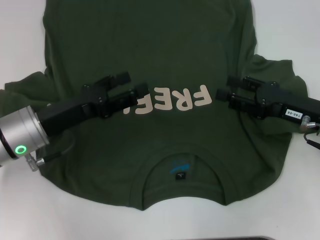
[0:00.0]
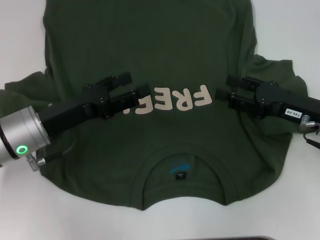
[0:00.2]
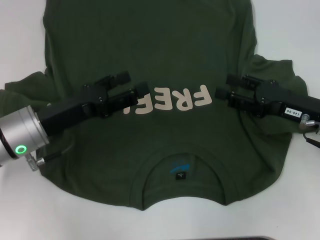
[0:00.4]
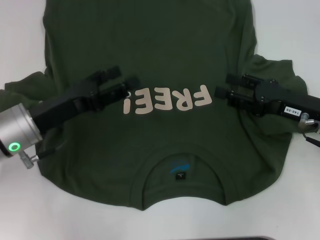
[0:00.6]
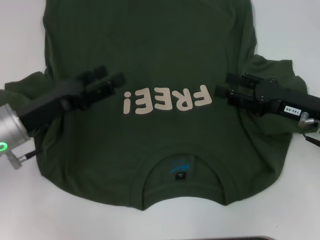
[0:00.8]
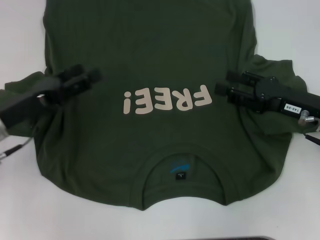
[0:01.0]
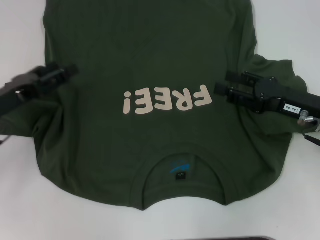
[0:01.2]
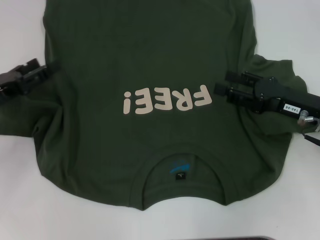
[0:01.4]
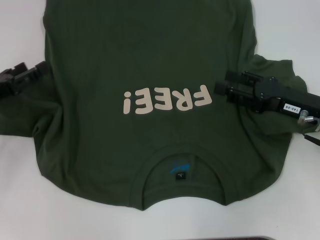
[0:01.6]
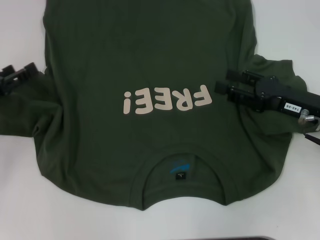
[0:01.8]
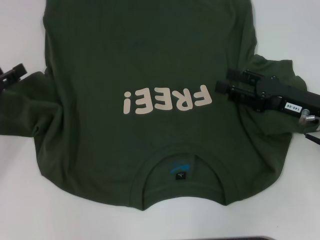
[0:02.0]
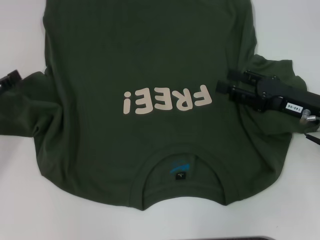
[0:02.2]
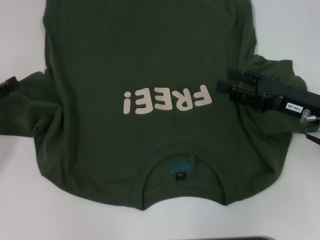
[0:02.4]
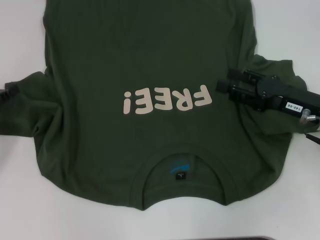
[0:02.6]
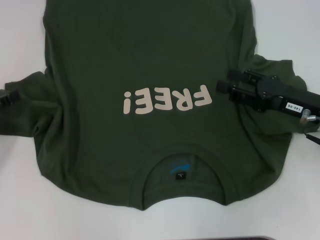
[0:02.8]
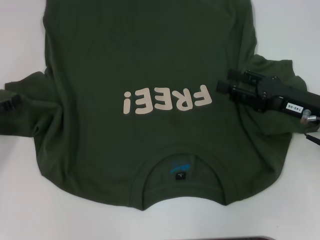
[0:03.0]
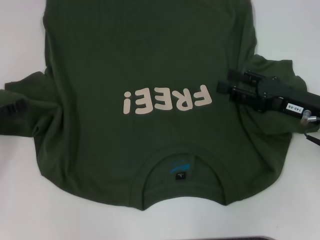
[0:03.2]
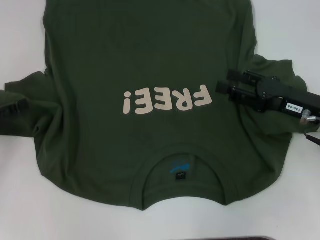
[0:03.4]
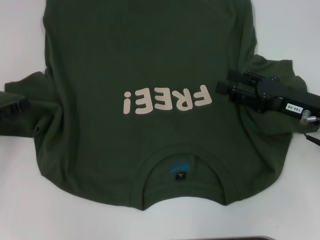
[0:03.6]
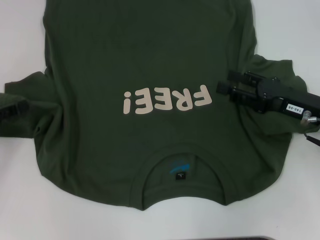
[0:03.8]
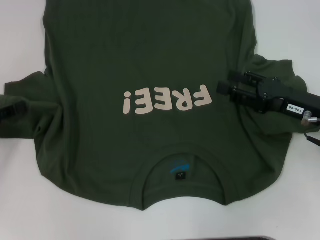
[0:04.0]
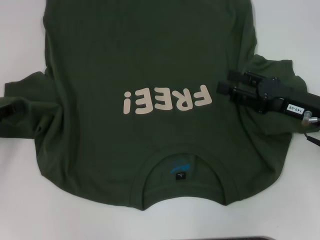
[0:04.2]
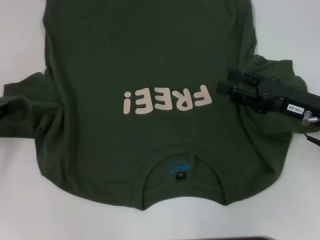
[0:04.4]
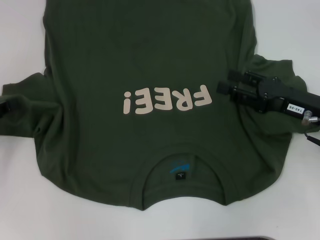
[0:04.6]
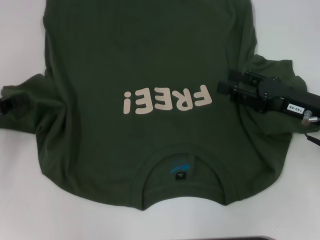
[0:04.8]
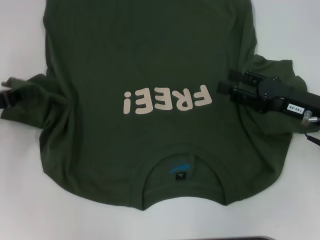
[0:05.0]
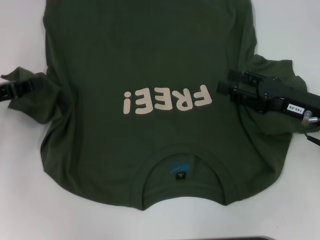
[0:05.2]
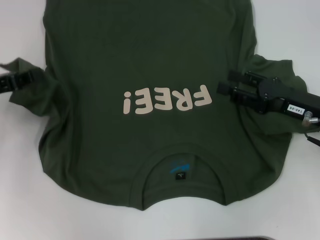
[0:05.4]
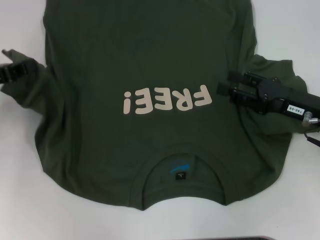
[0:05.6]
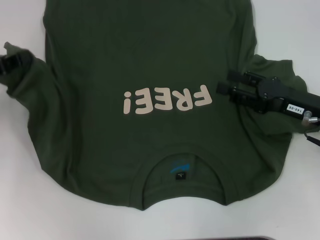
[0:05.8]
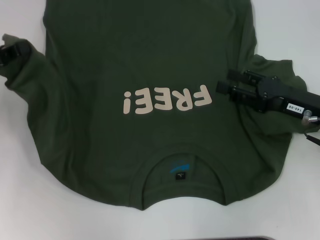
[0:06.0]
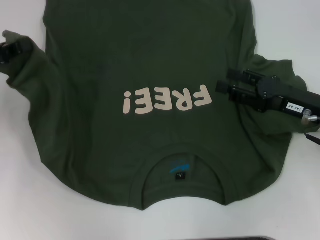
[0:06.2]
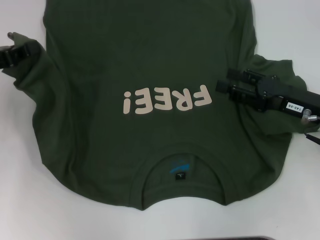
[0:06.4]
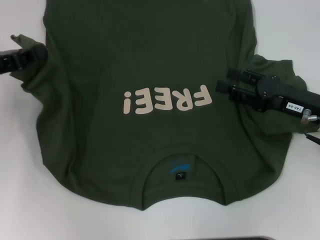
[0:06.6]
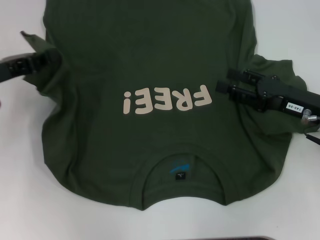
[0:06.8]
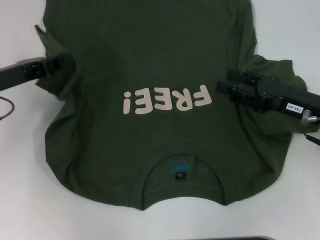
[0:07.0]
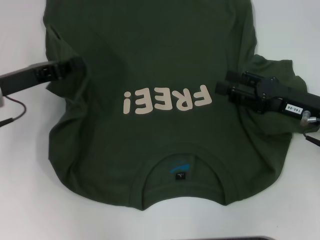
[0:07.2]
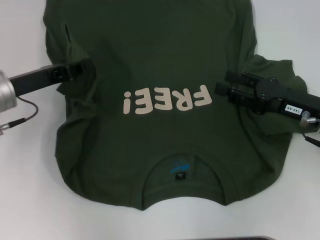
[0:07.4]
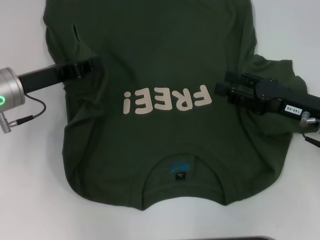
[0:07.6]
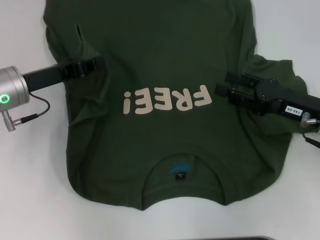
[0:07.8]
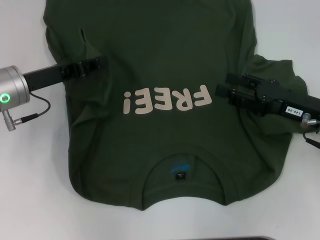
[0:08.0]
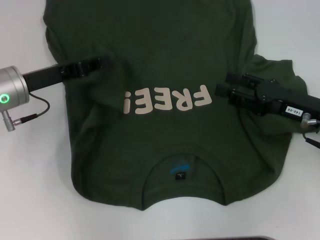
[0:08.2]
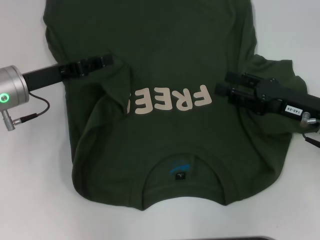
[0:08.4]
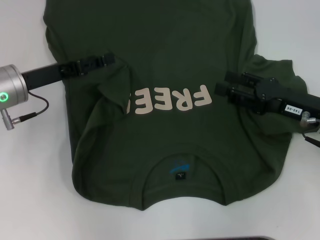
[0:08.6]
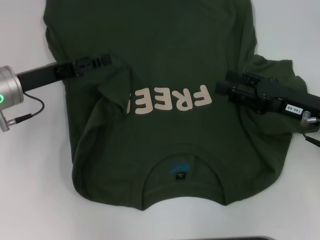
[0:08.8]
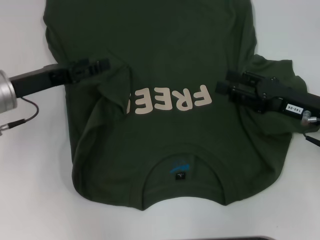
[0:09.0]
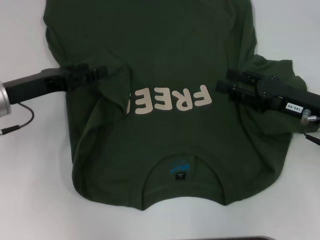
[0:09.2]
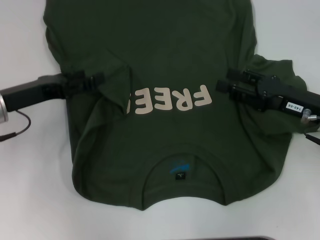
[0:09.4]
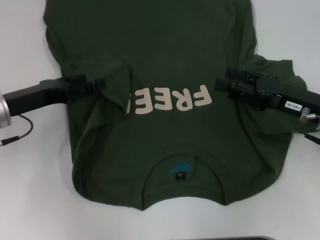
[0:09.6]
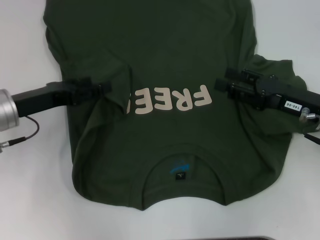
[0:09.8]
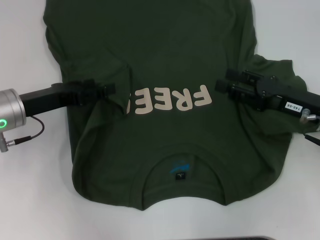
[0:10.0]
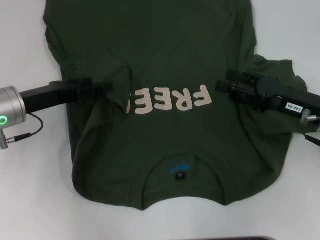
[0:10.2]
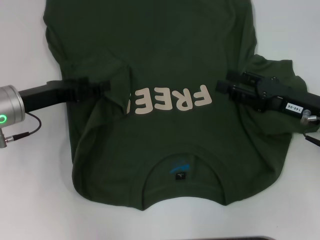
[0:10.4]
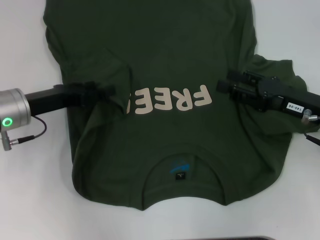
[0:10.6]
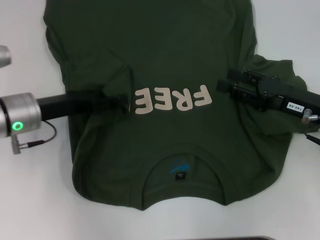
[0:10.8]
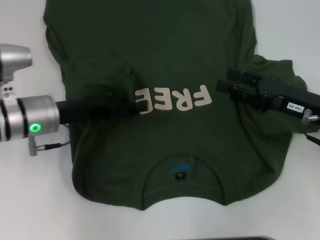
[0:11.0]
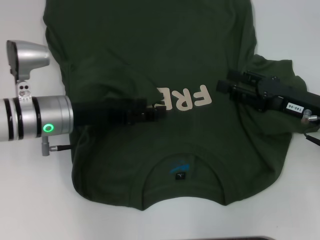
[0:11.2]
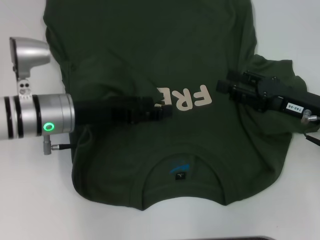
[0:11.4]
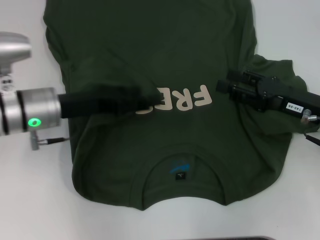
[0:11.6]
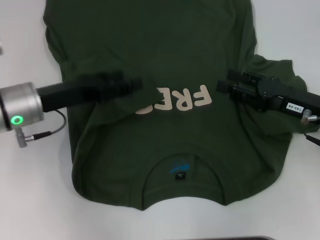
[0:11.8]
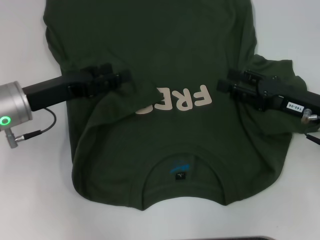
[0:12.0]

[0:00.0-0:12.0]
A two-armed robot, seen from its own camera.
0:00.0 to 0:01.6: The left gripper goes approximately 10 cm to the left.
0:01.6 to 0:03.0: The grippers stay close to where they were, moving slightly.
0:04.4 to 0:06.0: The left gripper is displaced upward by roughly 5 cm, and closes.
0:06.0 to 0:07.6: The left gripper moves to the right, about 10 cm.
0:07.6 to 0:09.0: The left gripper opens its fingers.
0:09.0 to 0:10.4: The grippers stay close to where they were, moving slightly.

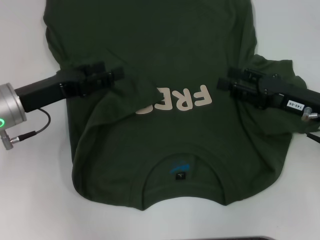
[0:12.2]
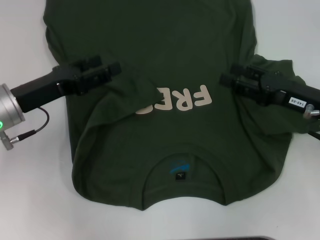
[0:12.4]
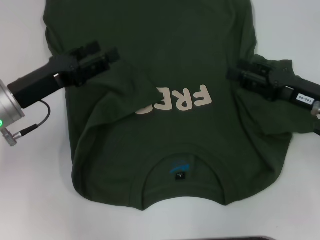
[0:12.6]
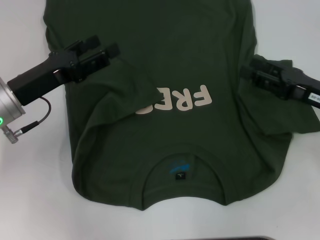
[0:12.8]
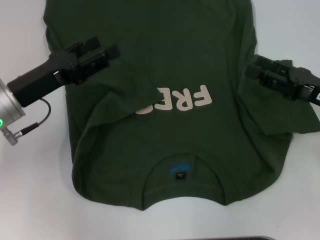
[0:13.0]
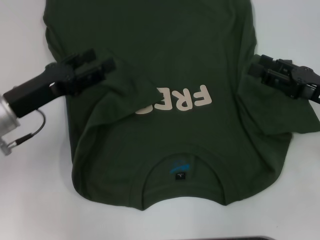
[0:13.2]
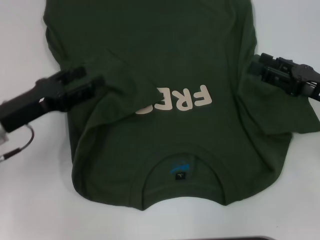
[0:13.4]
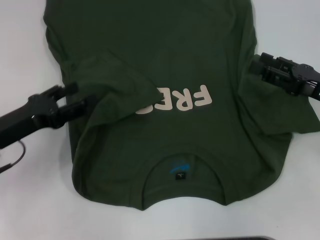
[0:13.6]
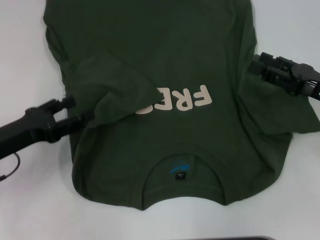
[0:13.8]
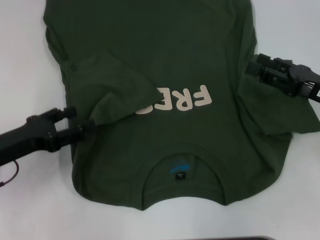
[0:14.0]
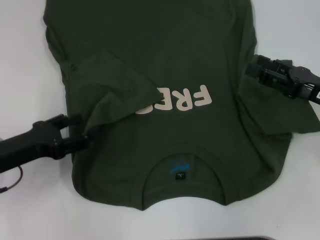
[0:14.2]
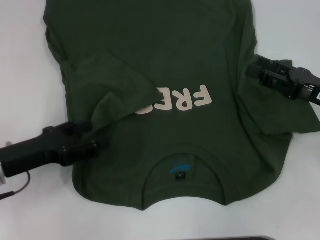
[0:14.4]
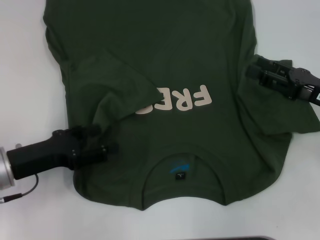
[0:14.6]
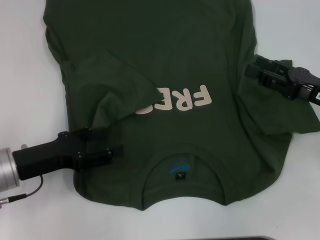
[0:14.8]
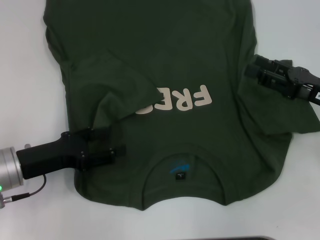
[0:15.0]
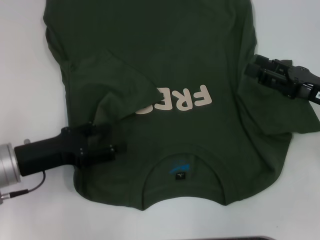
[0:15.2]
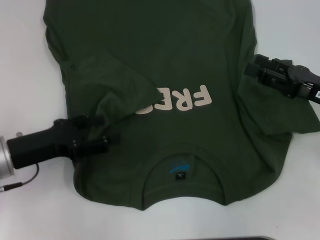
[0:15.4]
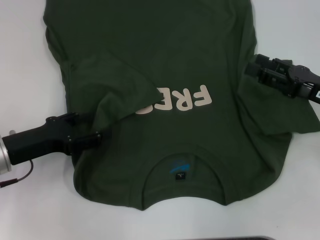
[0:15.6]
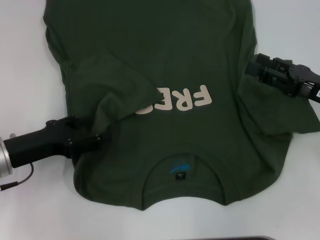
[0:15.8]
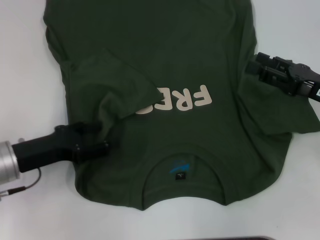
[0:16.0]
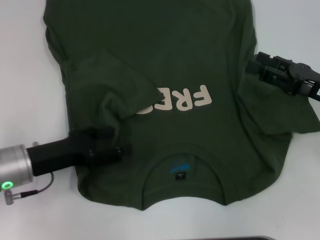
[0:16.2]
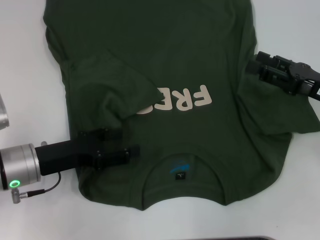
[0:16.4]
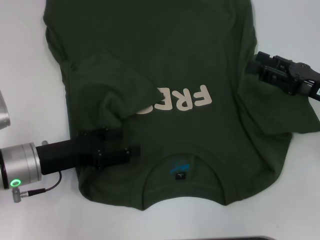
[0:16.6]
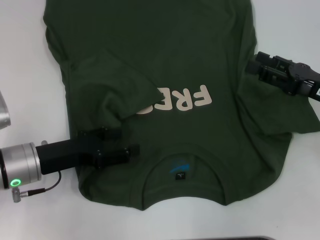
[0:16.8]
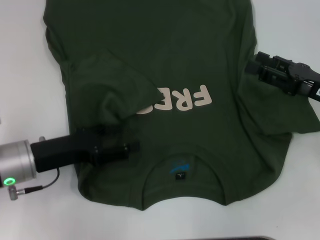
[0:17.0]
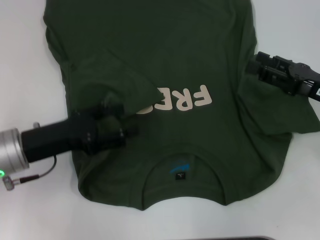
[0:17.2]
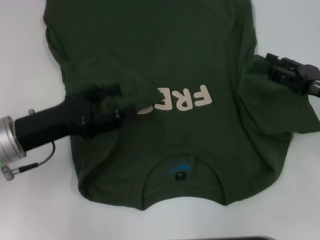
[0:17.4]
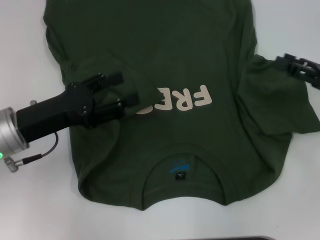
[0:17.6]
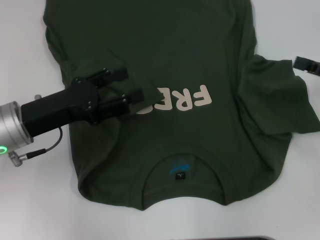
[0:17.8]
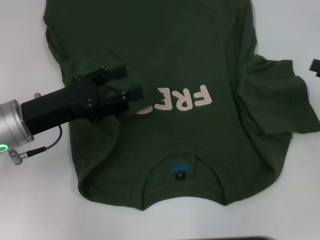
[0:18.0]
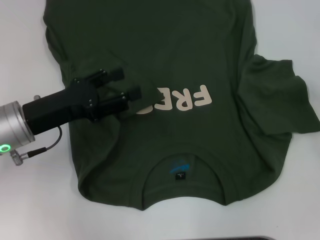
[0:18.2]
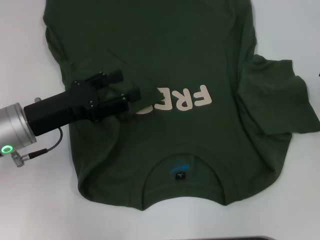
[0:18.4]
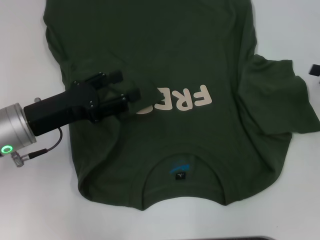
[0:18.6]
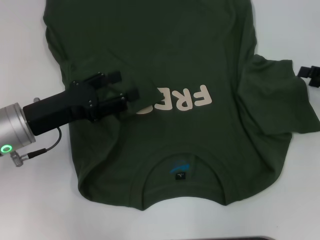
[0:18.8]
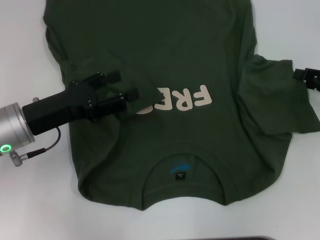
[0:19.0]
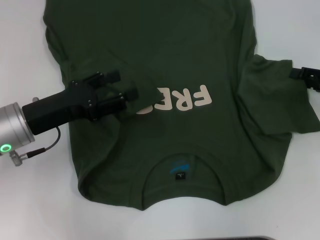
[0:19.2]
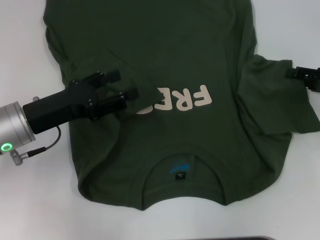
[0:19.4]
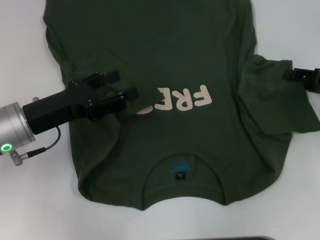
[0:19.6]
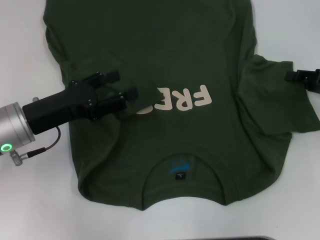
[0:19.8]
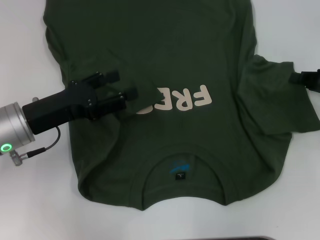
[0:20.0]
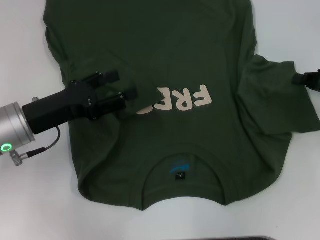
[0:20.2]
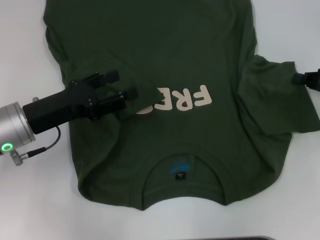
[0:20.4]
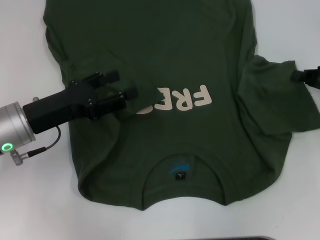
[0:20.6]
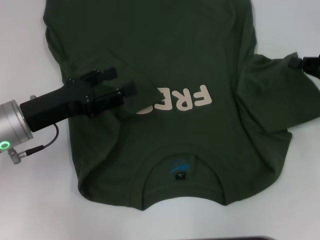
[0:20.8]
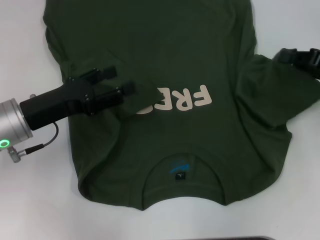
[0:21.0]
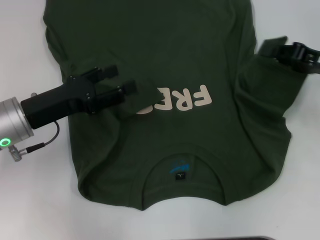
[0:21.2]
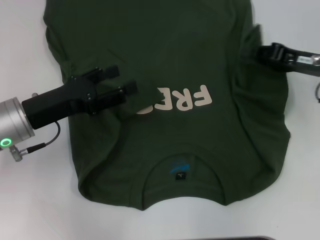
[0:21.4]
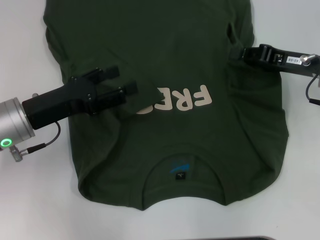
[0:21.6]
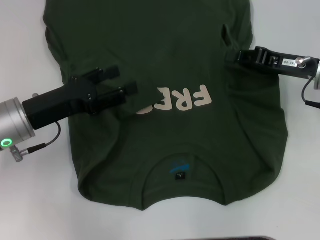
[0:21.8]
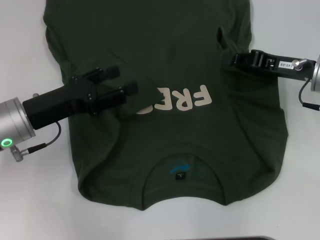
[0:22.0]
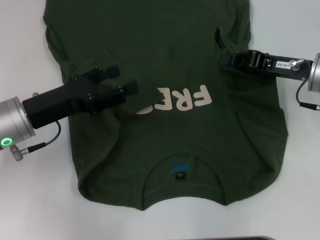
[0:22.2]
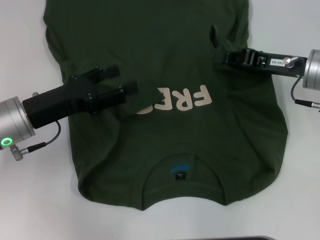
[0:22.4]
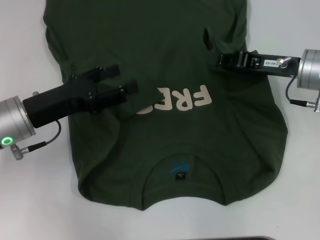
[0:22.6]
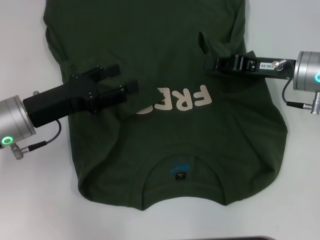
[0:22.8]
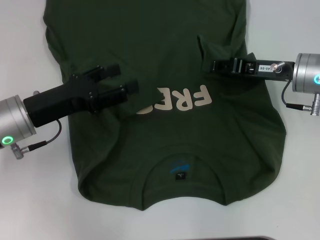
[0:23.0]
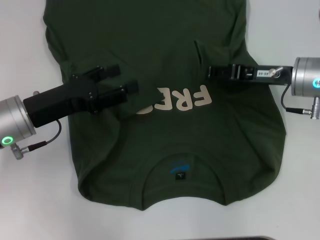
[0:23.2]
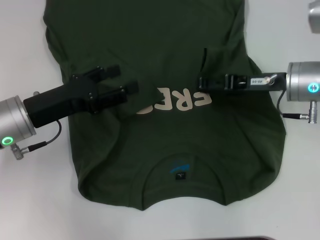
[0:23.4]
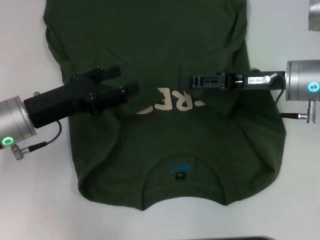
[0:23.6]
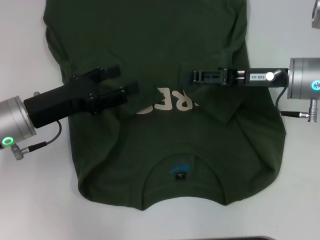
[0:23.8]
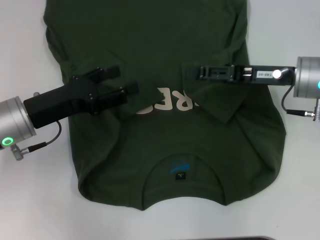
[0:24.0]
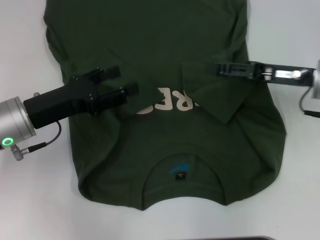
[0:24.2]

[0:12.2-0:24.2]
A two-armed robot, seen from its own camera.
0:12.2 to 0:13.8: The left gripper travels backward by roughly 5 cm.
0:13.8 to 0:16.6: There are only small adjustments of the grippers.
0:16.6 to 0:18.2: The right gripper shifts about 10 cm to the right, while the left gripper moves about 5 cm.
0:18.2 to 0:19.8: The right gripper changes place by approximately 5 cm.
0:19.8 to 0:21.2: The right gripper changes place by roughly 5 cm, and closes.
0:21.2 to 0:22.6: The right gripper is displaced to the left by roughly 5 cm.
0:22.6 to 0:24.2: The right gripper opens up.
